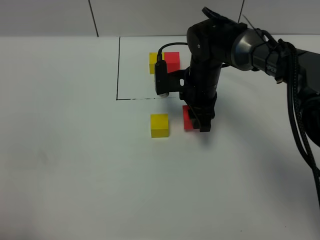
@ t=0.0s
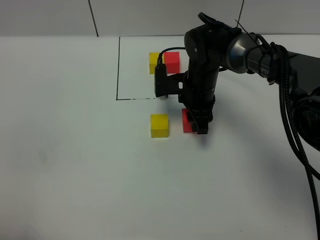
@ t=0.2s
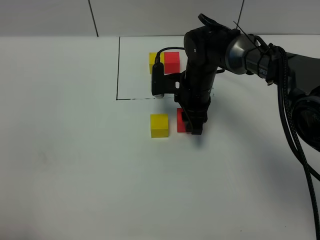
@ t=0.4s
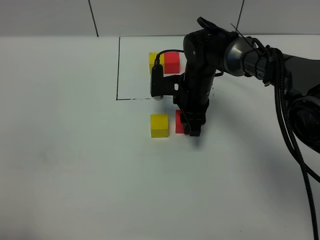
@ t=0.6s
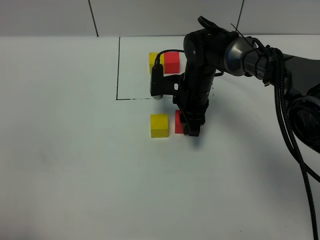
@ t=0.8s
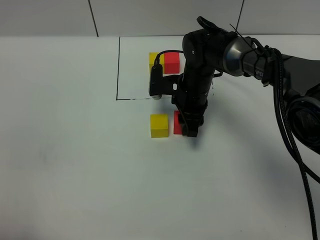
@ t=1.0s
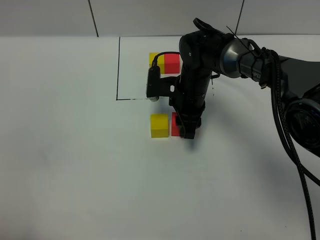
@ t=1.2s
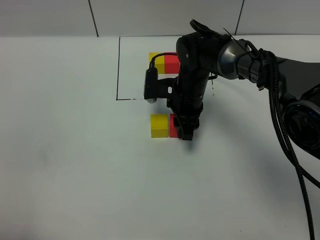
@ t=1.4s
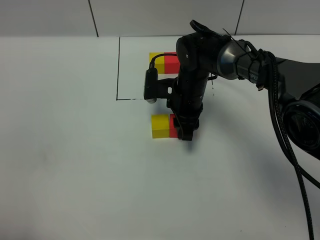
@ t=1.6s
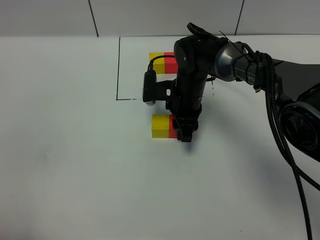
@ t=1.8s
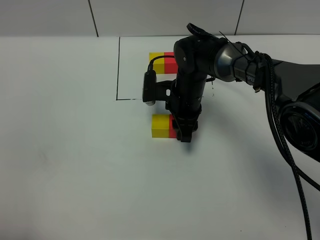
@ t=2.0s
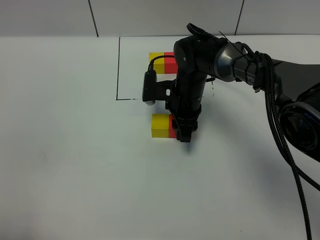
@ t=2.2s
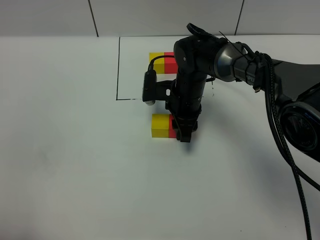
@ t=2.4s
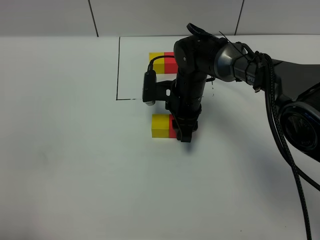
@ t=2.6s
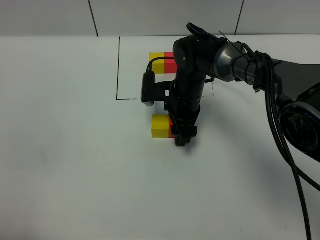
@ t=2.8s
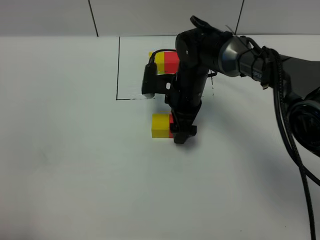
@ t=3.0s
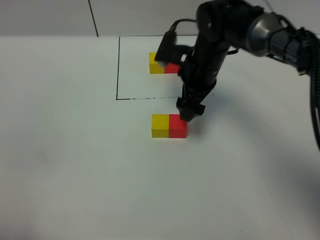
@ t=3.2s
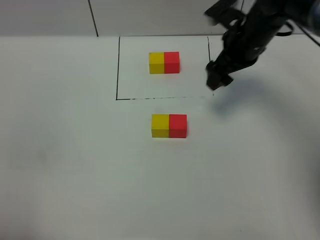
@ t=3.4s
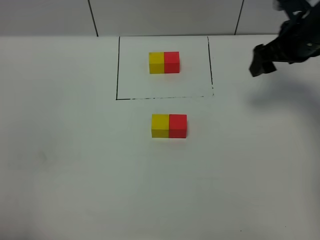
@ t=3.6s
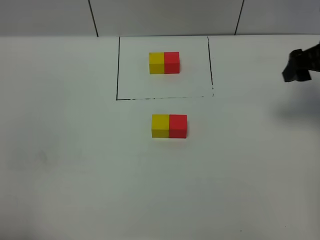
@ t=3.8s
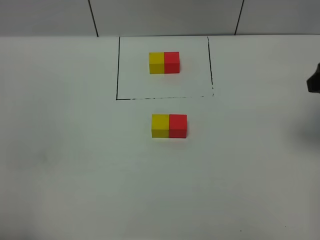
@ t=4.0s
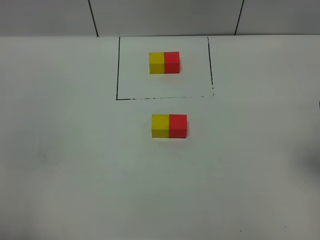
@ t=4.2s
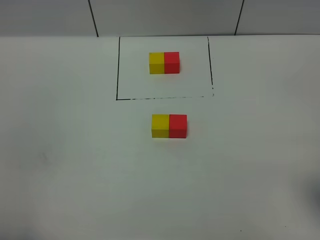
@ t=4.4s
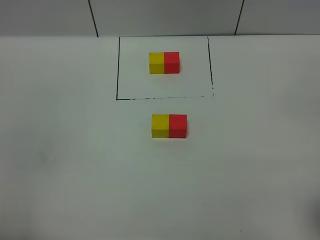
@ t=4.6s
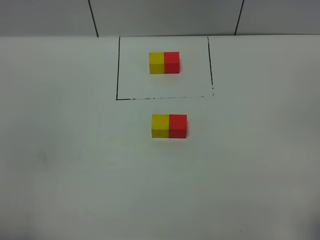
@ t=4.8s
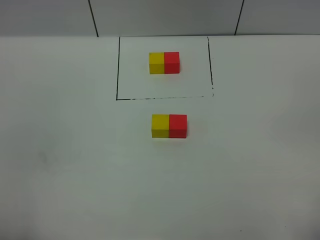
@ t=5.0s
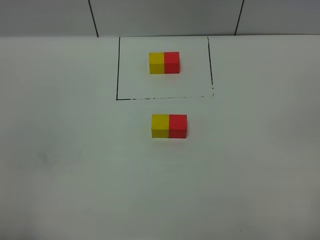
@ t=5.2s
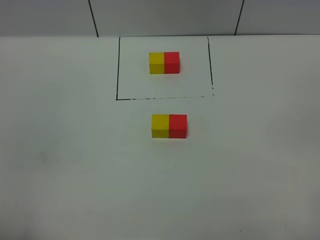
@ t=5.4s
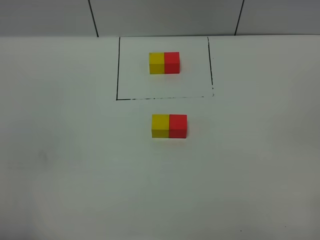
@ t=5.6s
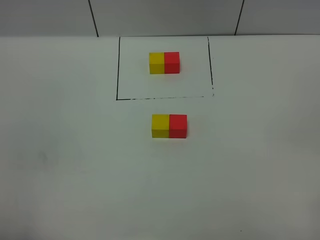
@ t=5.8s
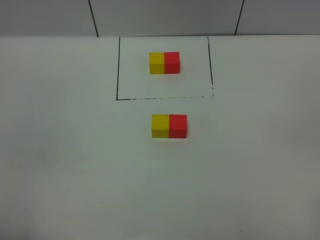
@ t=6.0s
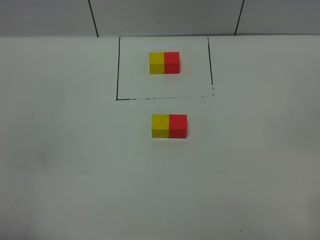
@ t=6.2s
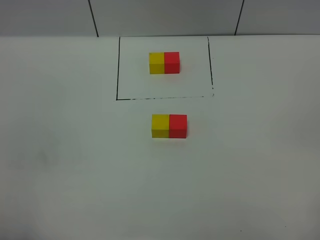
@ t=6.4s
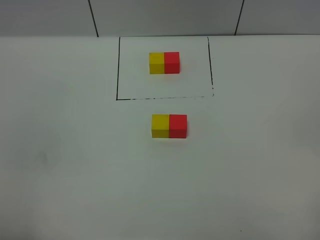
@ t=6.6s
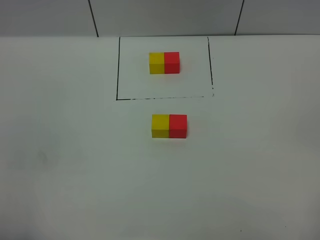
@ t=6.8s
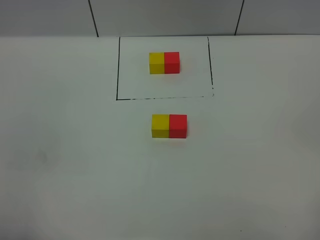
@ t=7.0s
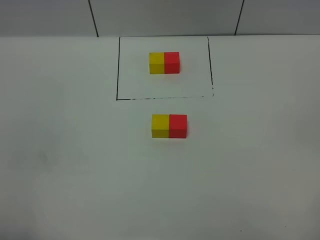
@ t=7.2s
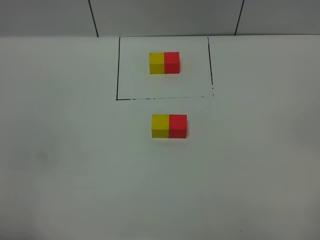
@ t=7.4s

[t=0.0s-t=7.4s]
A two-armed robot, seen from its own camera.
Task of the whole recording: According to the building block template in front, assemble the scattered blocks together.
Step, t=0.0s to t=3.0s: Put the red cube on the right of the yellow cube.
t=0.0s to t=1.4s: The grippers stay close to where they were, moving slightly.
t=1.4s to t=3.0s: The right gripper opens.
t=3.0s to t=4.4s: The right gripper shifts roughly 40 cm backward, to the right and upward.
